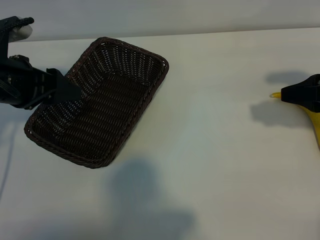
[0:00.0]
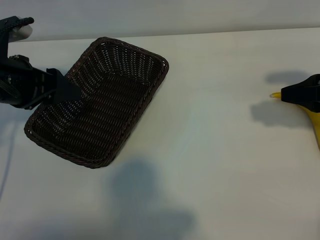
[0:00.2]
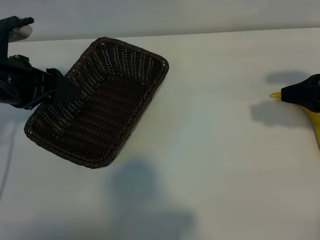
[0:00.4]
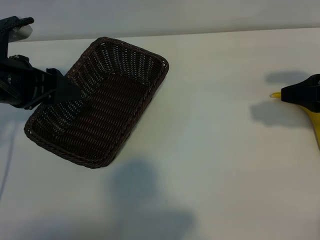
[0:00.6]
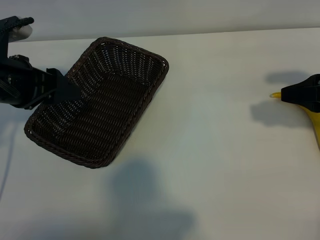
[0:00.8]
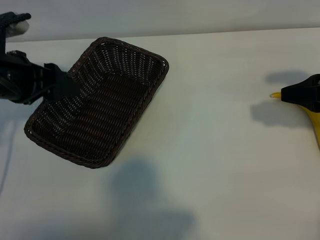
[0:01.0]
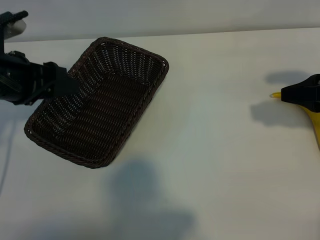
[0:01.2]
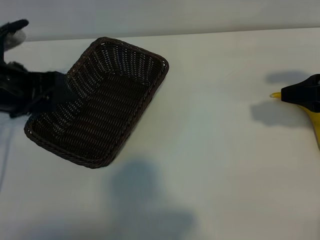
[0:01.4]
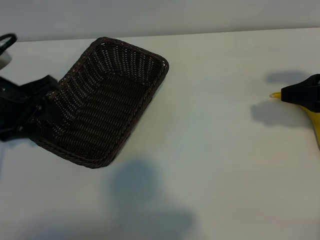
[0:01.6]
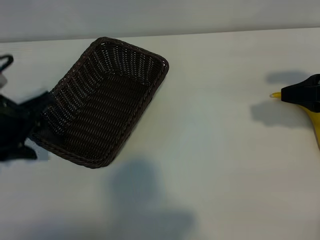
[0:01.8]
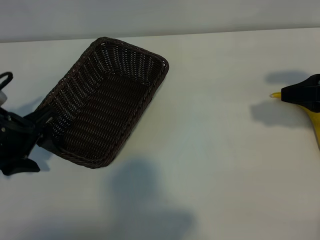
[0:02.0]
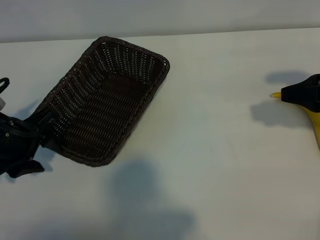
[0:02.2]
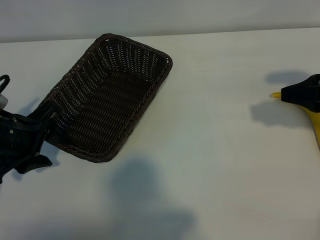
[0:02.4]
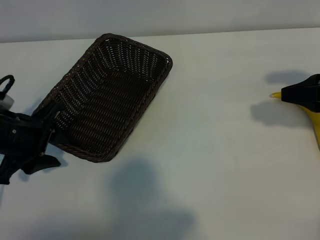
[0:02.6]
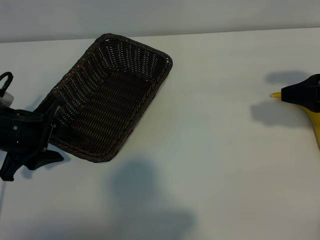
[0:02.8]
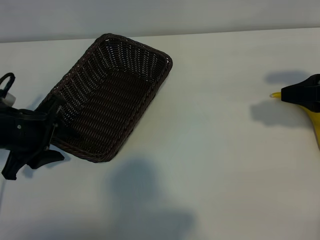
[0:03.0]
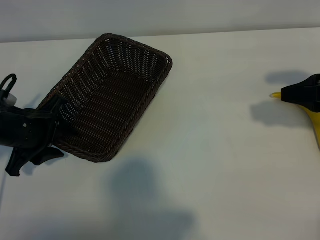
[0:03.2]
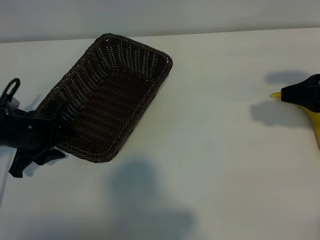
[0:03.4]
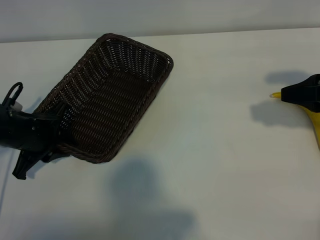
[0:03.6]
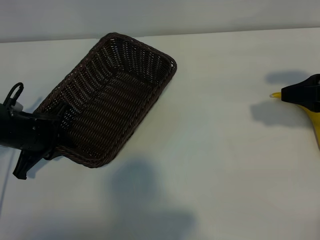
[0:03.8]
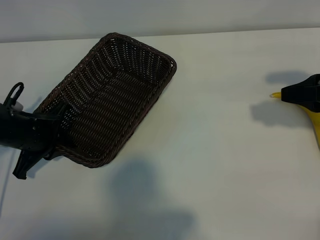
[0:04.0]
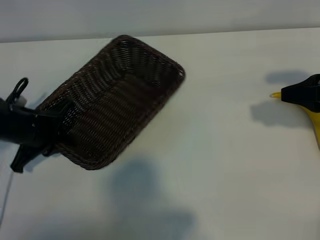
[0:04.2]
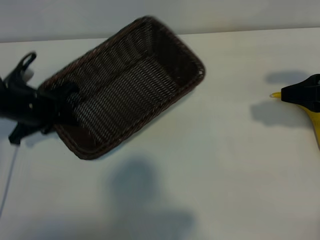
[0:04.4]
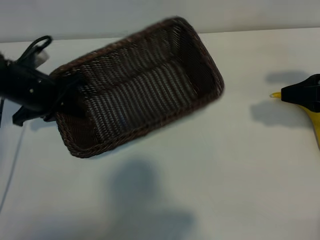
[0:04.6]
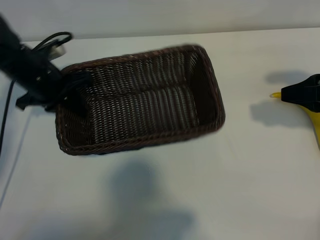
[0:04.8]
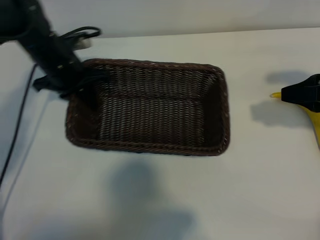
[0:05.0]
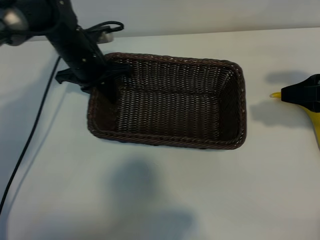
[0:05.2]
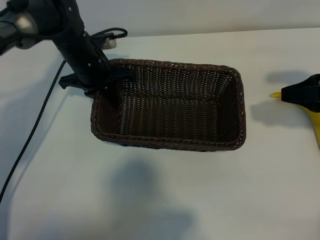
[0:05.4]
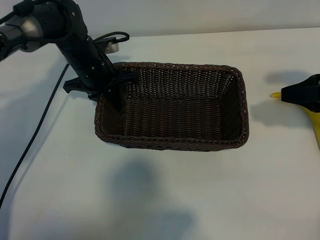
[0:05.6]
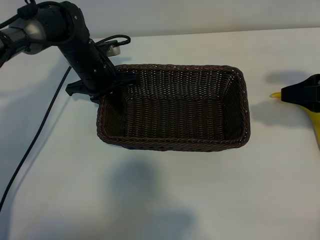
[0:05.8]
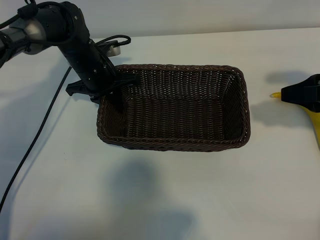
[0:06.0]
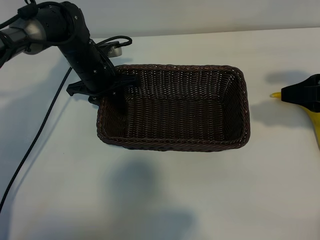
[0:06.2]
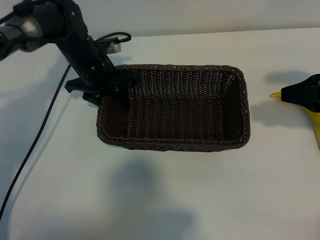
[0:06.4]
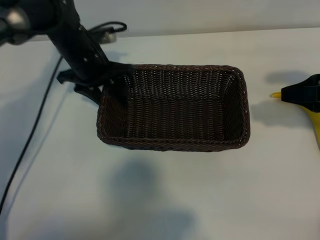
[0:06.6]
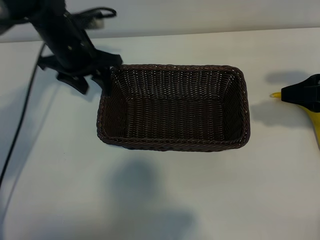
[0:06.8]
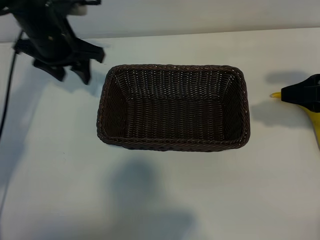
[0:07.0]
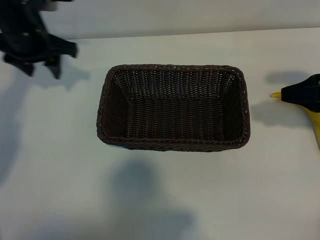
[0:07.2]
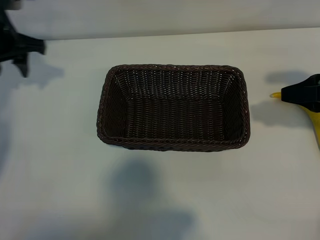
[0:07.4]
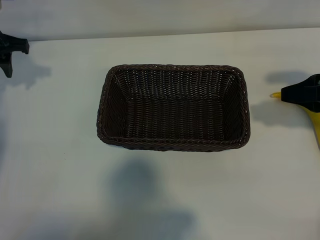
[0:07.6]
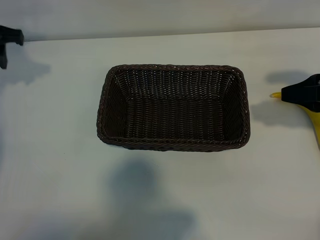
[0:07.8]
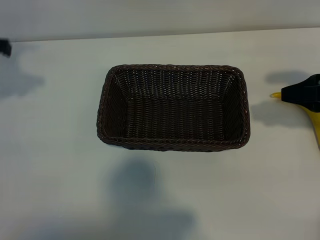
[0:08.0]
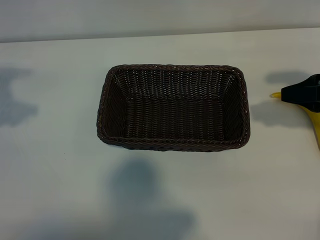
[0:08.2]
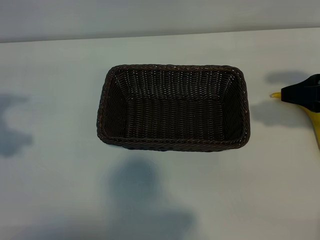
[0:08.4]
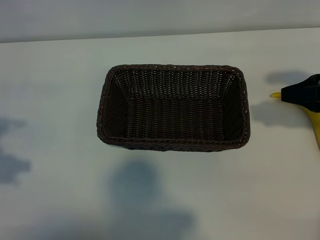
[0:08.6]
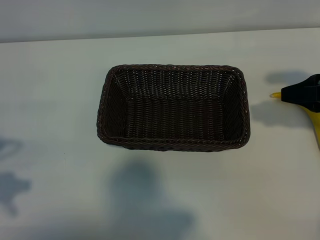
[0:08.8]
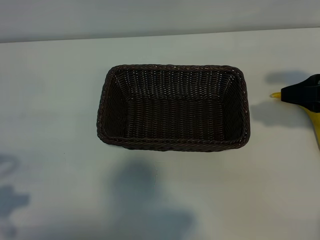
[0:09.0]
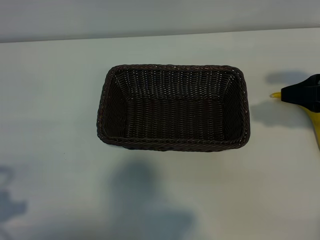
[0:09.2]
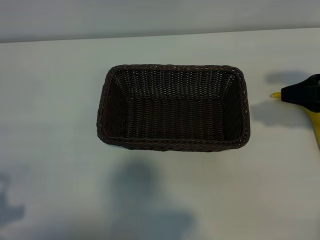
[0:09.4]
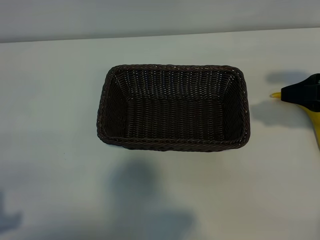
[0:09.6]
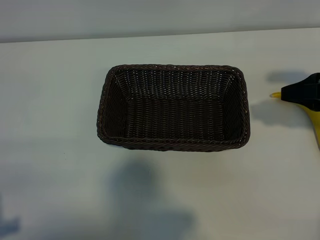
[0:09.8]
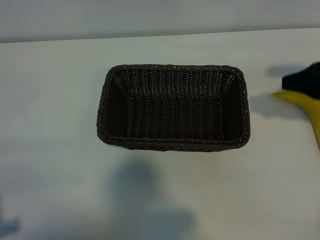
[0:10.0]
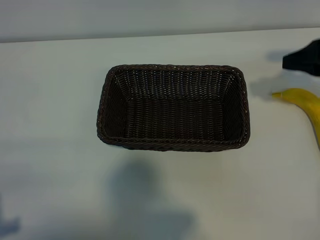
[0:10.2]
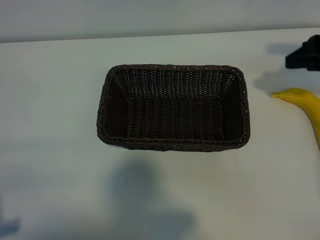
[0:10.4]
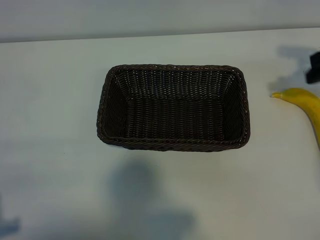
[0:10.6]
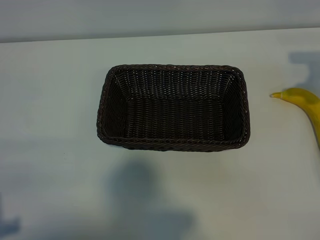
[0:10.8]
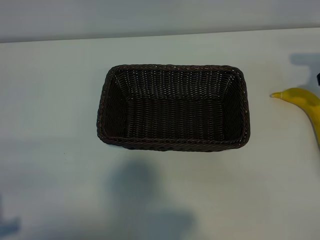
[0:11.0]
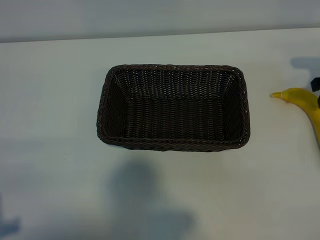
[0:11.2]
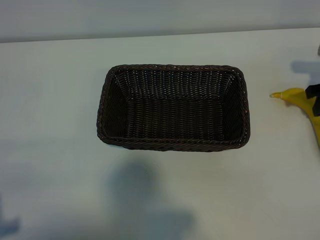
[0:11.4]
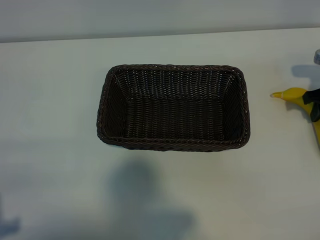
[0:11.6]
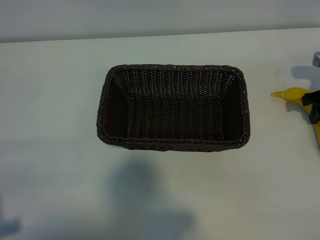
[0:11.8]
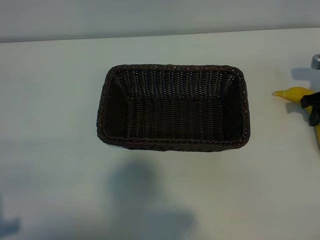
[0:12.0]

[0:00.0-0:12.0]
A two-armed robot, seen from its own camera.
Task of the whole recording: pick up the banana and put it into the basket.
Step, 0:01.0 to 0:04.0: Grasp the basket with the left gripper.
Step, 0:04.2 to 0:06.4: Place the basket in the center of the table with the left gripper.

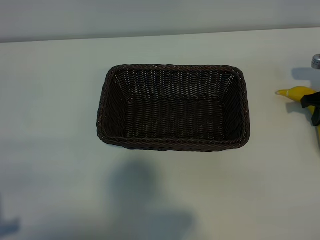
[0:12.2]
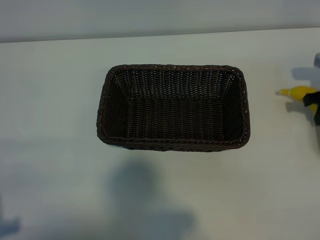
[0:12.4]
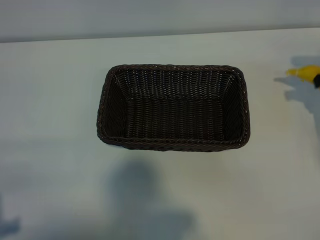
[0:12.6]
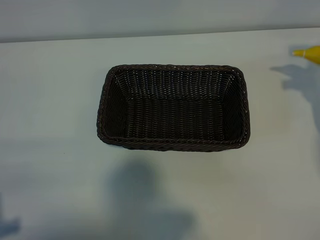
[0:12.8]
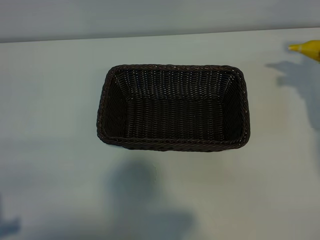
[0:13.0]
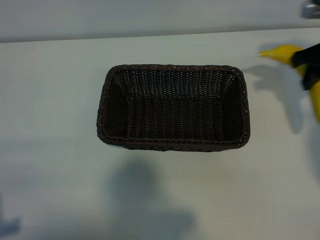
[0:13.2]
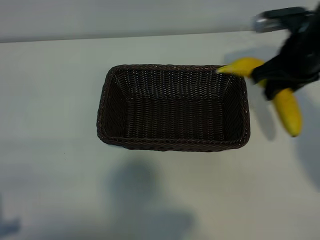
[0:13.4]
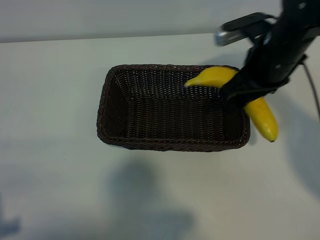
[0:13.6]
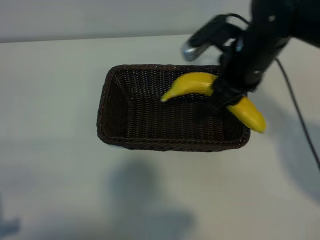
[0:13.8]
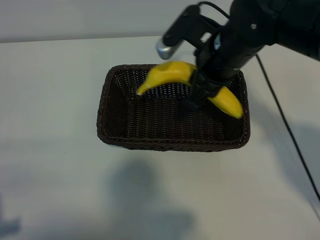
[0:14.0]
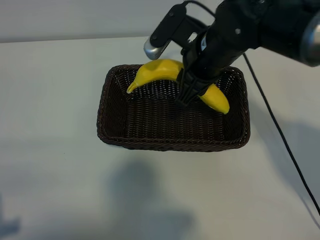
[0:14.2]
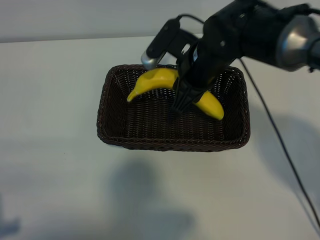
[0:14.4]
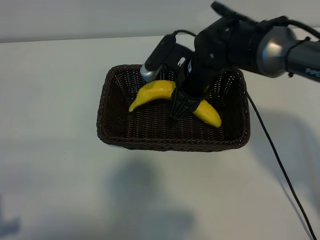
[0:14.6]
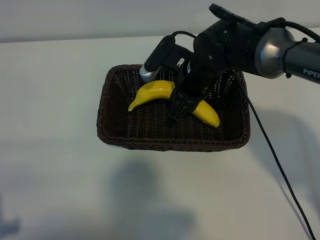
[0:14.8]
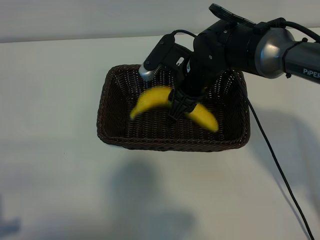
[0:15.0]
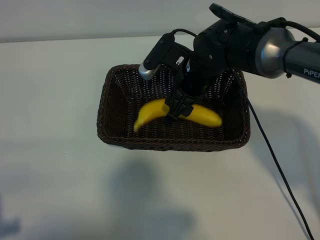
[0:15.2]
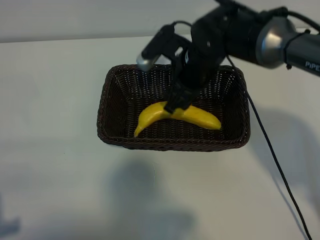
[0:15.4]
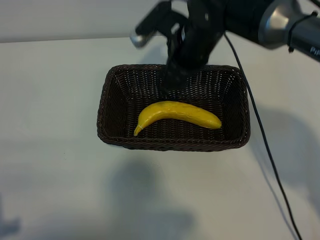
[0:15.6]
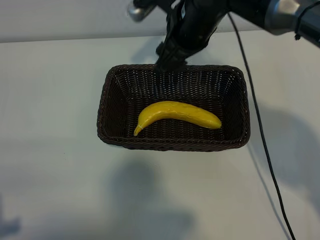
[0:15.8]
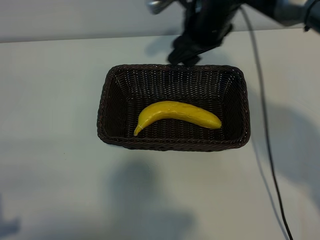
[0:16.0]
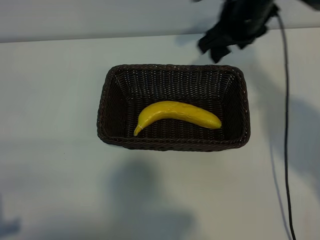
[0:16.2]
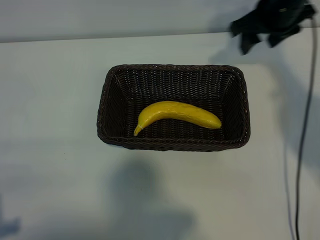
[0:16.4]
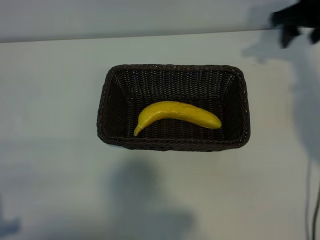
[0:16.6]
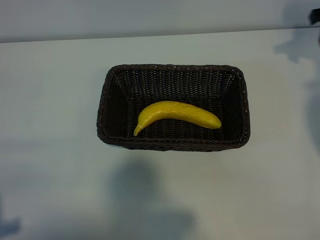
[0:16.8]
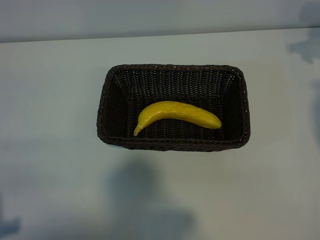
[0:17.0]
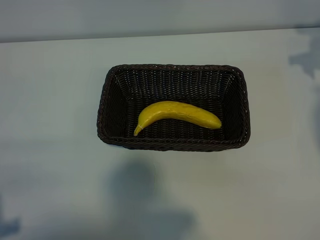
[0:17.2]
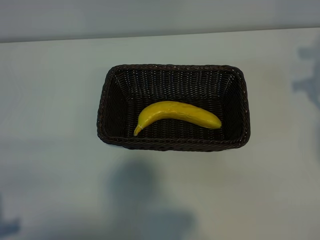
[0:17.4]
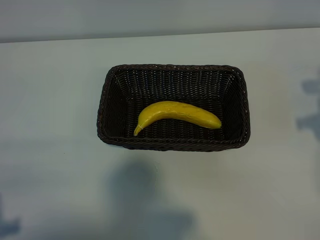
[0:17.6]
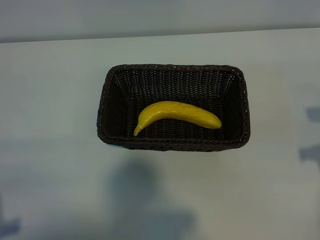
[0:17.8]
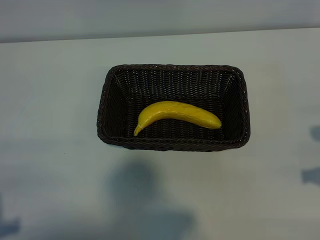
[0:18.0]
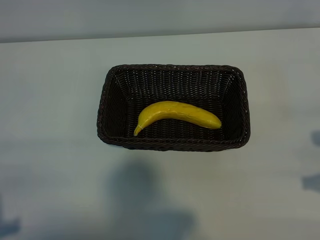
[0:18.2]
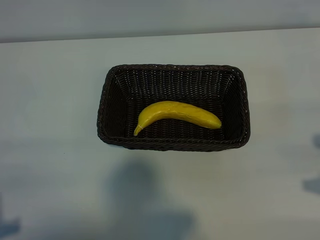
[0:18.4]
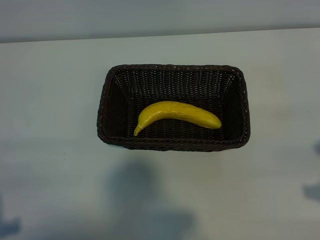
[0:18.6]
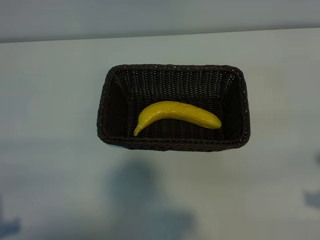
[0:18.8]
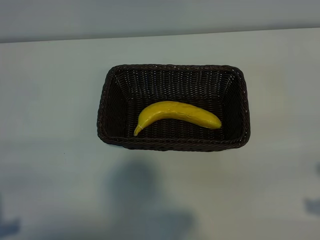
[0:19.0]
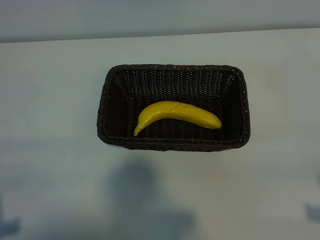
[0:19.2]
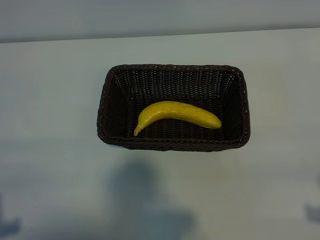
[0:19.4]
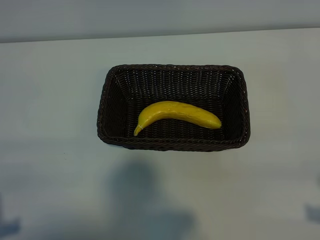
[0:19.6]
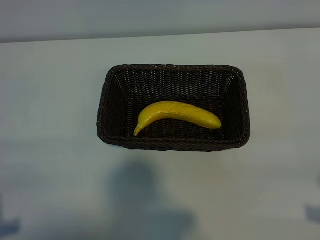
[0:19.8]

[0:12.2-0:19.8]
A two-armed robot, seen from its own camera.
Task of the whole recording: pick up the banana and put it into the basket.
Step, 0:12.2 to 0:15.0: Place the banana in the basket with right gripper.
